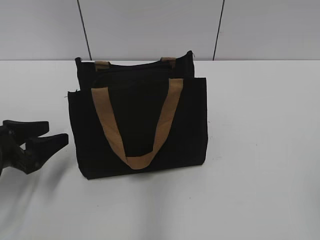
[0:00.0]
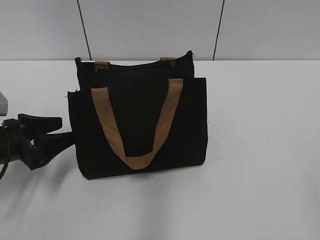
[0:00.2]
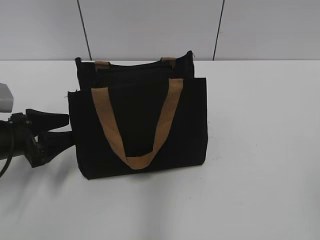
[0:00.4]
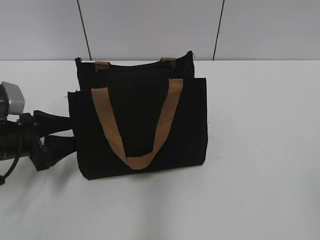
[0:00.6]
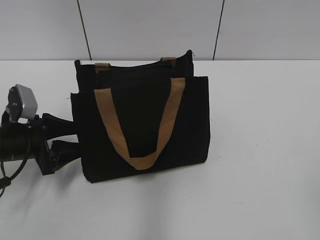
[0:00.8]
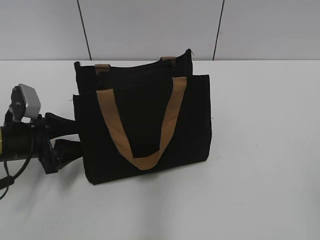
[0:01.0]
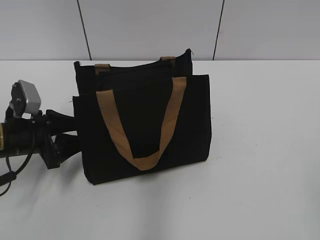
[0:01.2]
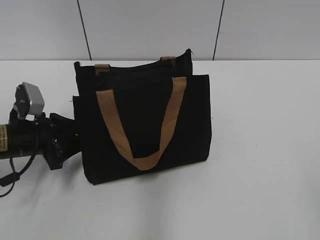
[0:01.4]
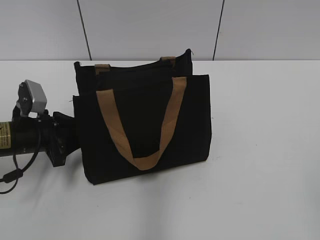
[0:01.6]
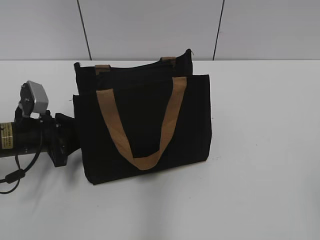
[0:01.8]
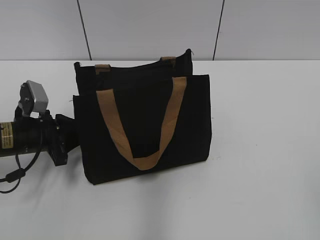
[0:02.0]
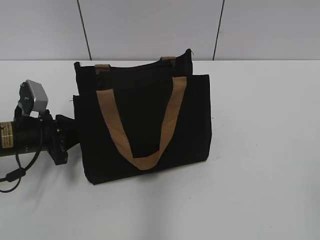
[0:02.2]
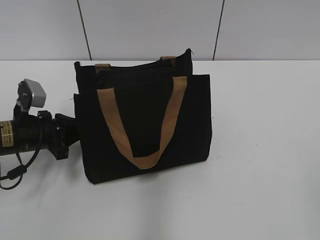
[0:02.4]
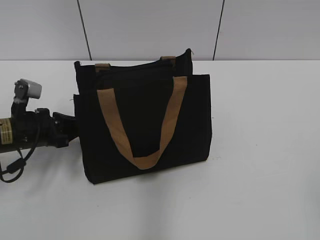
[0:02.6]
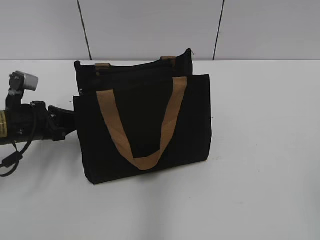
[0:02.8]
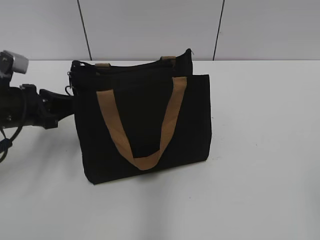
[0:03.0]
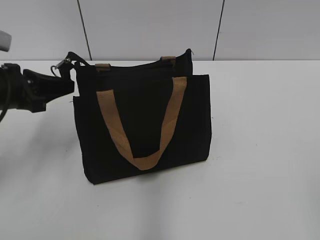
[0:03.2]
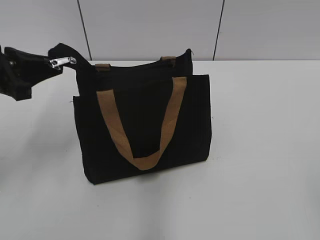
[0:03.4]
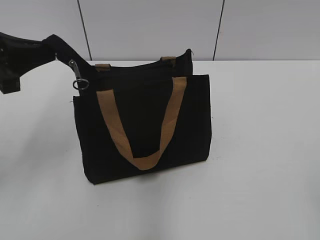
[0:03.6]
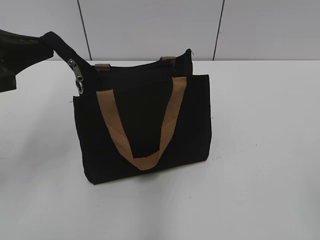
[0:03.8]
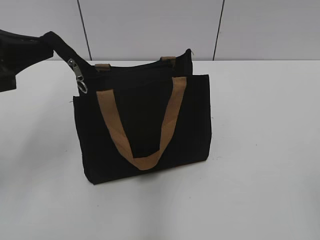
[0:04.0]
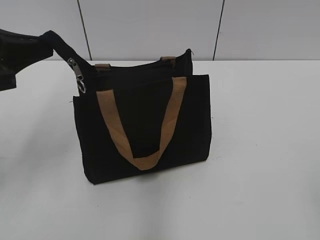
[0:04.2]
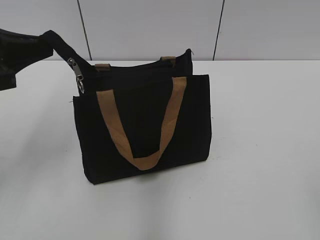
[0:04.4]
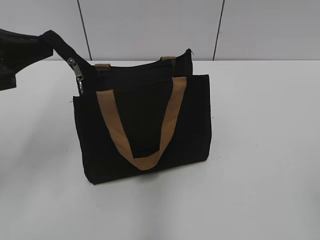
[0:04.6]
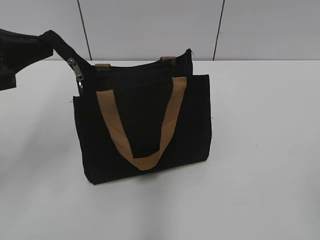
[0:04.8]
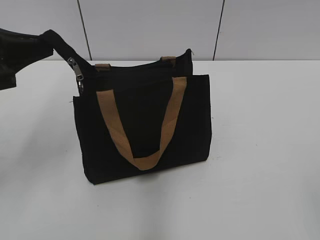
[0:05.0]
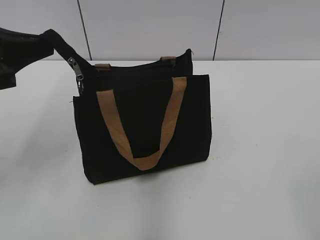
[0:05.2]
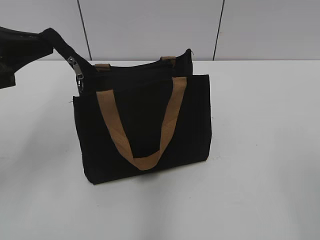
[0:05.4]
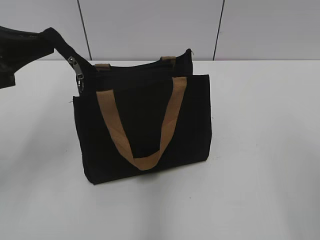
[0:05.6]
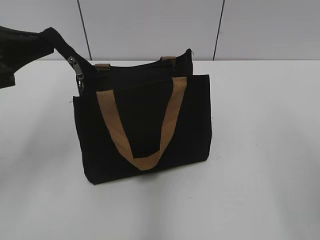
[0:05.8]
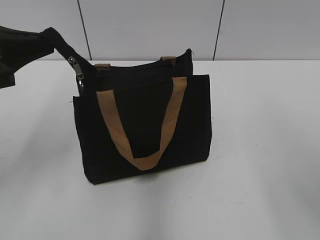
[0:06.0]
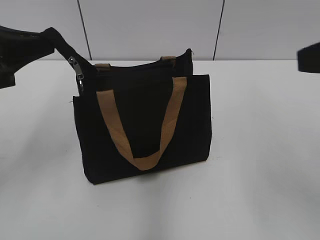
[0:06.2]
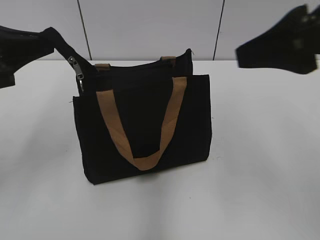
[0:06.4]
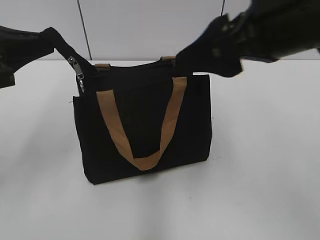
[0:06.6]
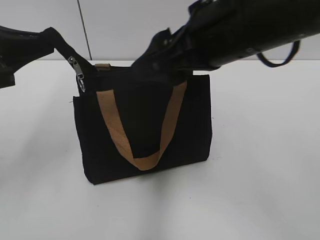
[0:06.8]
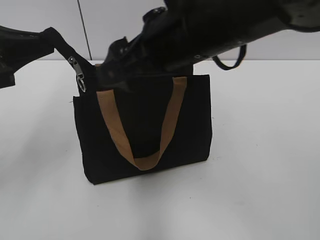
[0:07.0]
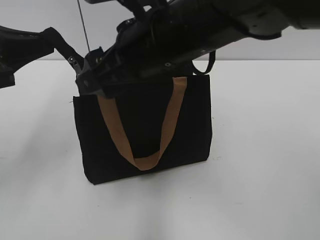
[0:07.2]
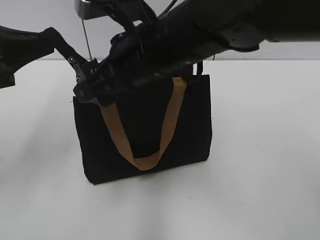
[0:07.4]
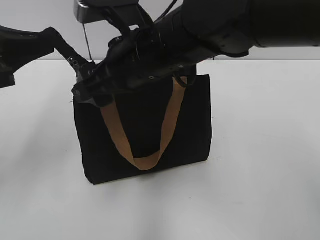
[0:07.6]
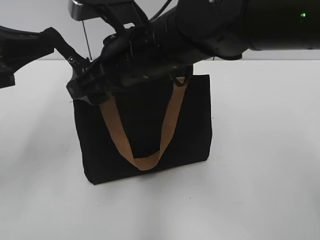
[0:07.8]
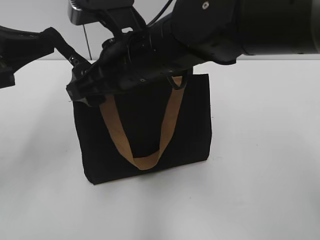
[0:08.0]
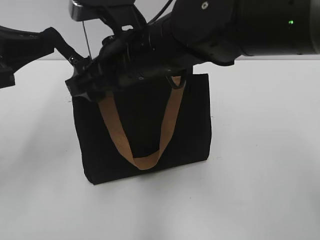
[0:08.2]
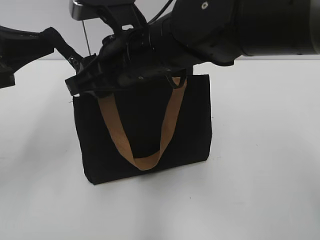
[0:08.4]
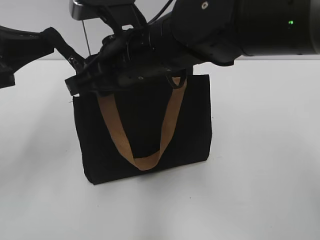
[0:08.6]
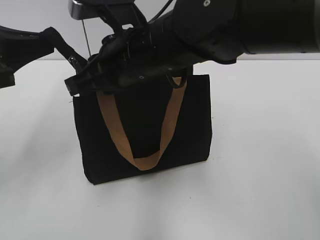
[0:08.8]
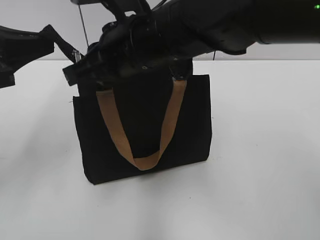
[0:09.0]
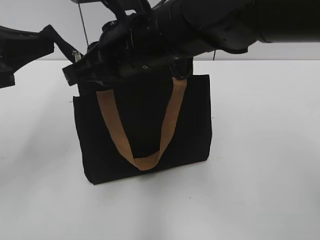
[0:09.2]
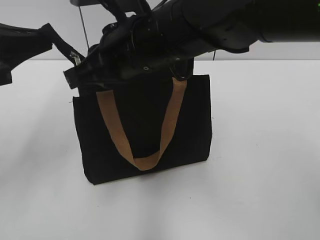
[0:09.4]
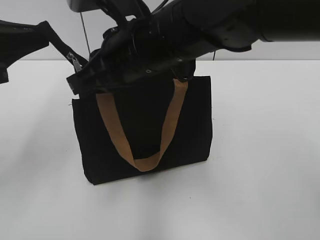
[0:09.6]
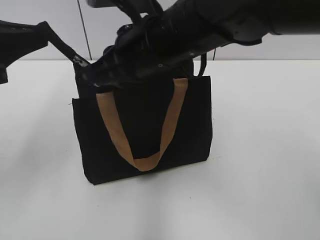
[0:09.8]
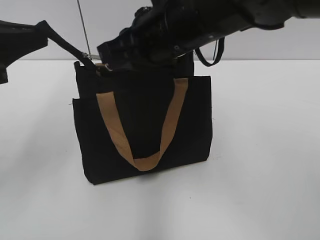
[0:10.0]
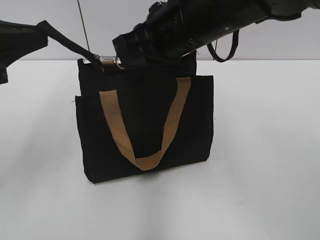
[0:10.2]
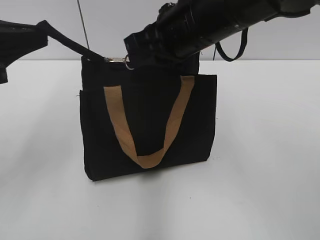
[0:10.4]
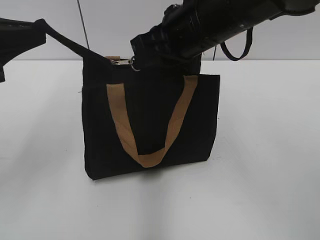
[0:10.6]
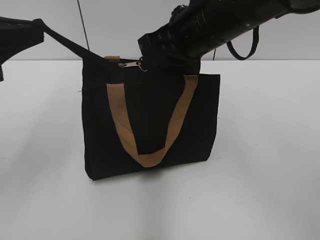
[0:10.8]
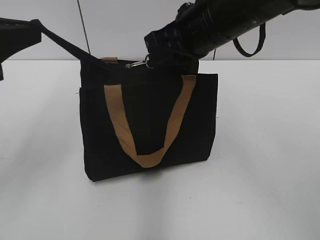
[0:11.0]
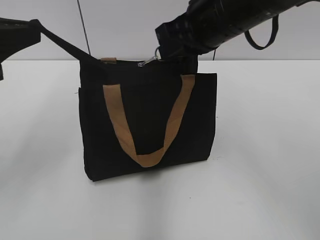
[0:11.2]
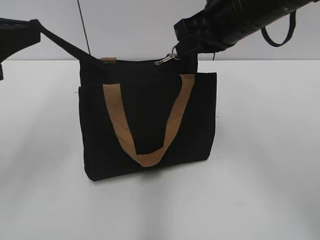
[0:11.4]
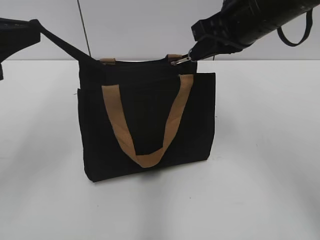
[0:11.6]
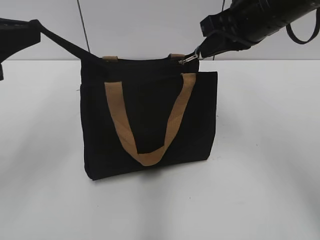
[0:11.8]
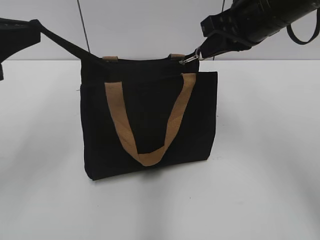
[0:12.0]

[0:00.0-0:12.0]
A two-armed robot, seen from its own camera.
0:00.0 to 0:01.6: The left gripper is displaced forward by approximately 5 cm.
0:01.6 to 0:03.0: The left gripper closes.
0:03.0 to 0:04.4: The left gripper is displaced upward by about 15 cm.
0:06.0 to 0:07.6: The right gripper is displaced to the left and forward by roughly 30 cm.
0:07.6 to 0:09.0: The right gripper closes.
0:09.0 to 0:10.4: The right gripper shifts roughly 5 cm to the right.
0:10.4 to 0:12.0: The right gripper travels to the right by roughly 10 cm.

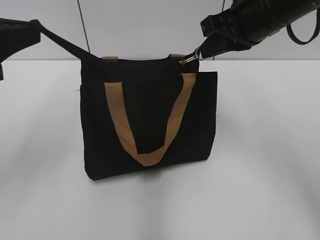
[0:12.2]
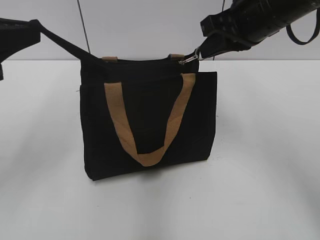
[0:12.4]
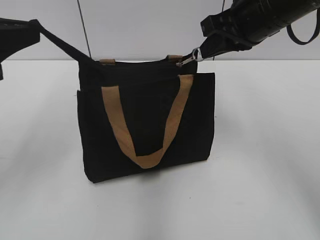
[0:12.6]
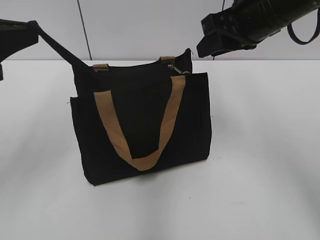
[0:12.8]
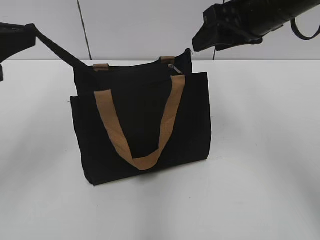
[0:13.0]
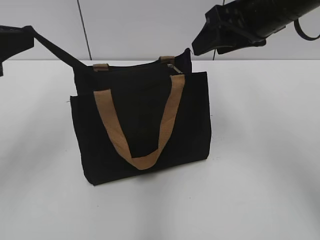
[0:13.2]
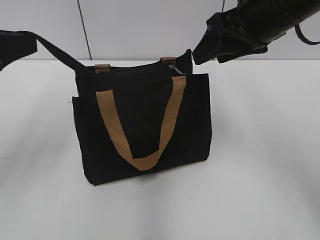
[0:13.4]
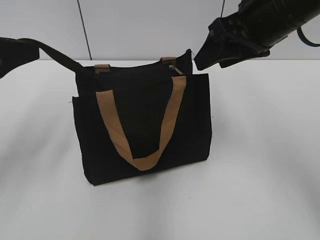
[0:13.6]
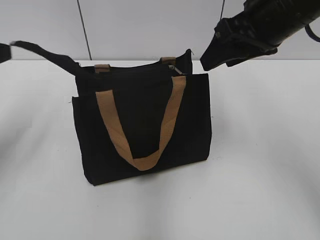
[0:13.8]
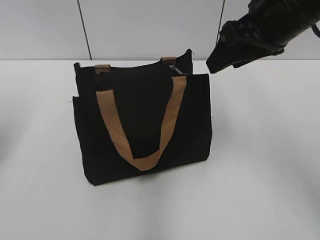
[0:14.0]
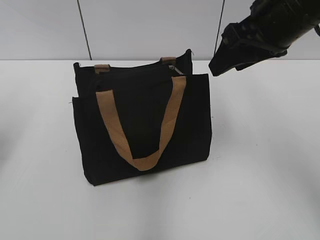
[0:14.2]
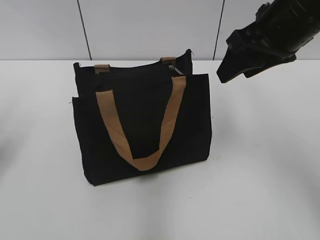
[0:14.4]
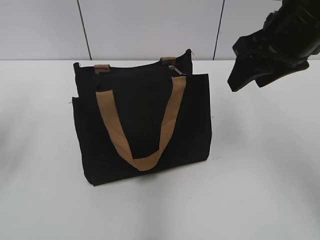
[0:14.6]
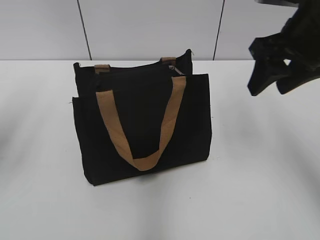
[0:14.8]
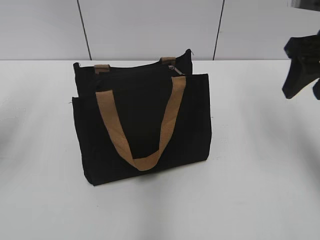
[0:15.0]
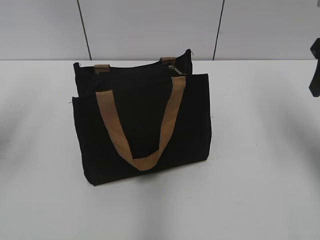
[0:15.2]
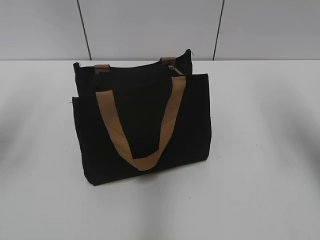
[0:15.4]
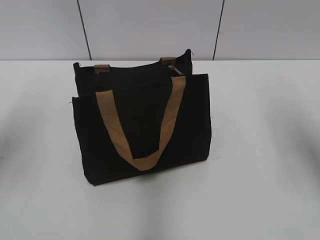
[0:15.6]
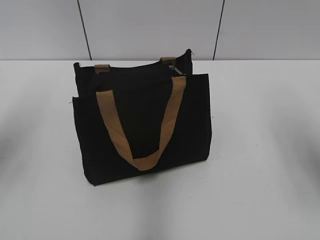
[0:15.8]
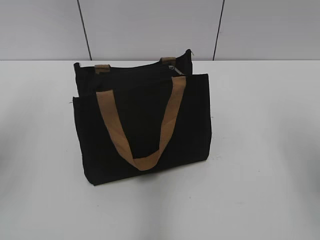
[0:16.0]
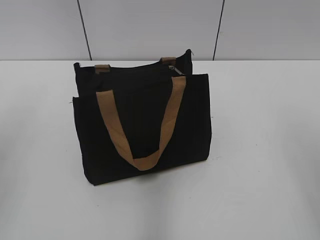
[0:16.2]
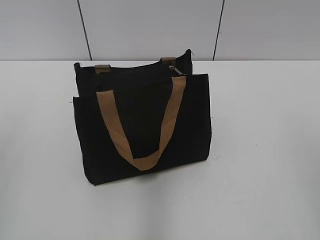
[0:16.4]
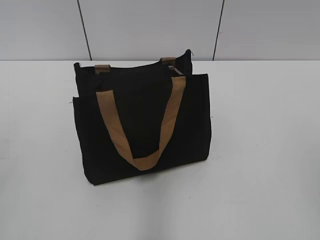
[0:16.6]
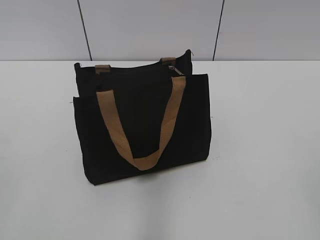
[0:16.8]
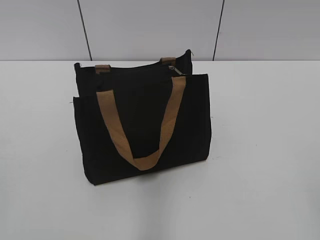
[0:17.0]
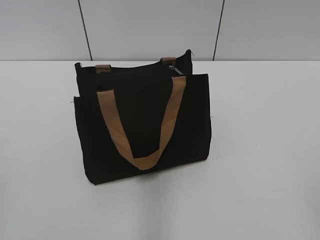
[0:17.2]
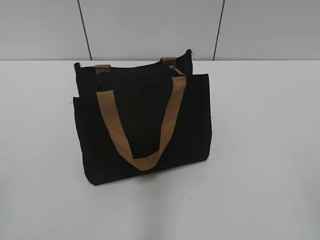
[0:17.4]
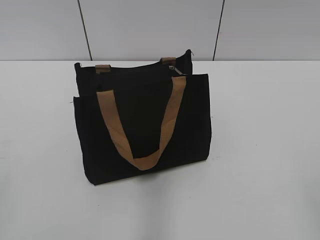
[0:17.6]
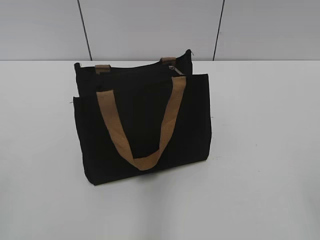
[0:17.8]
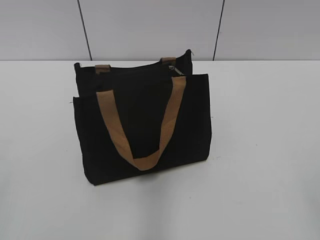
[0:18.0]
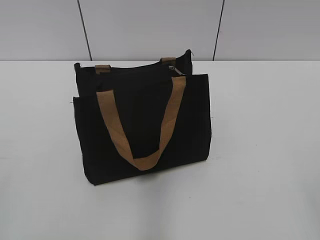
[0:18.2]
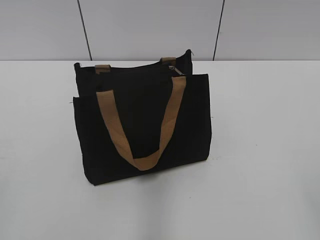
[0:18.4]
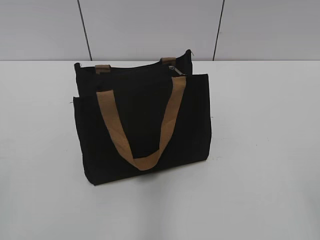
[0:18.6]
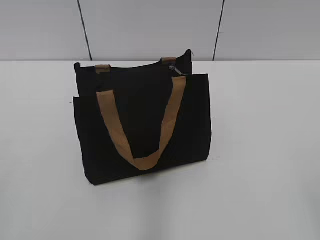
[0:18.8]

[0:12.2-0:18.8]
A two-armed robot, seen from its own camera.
Step, 0:12.8 to 0:13.8: Grab the zipper with your left hand.
0:12.2 to 0:13.8: The right gripper opens. Meanwhile the left gripper opens up.
0:13.8 to 0:15.4: The right gripper goes roughly 10 cm to the right, while the left gripper ends up some 5 cm from where it was.
0:15.4 to 0:17.2: The grippers both shift backward by approximately 30 cm.
